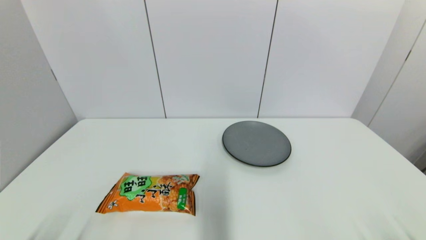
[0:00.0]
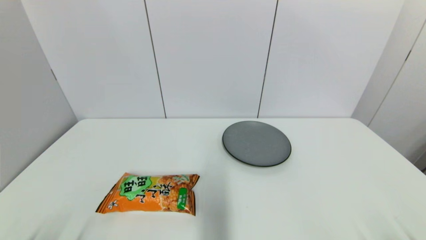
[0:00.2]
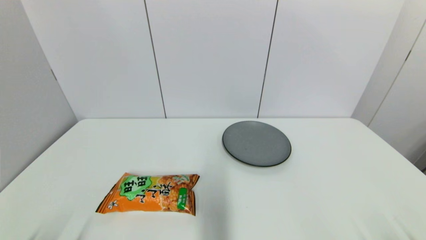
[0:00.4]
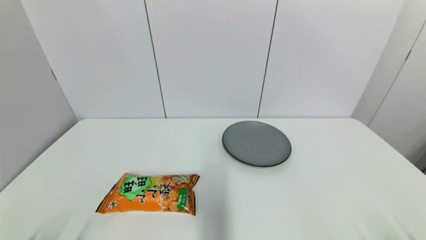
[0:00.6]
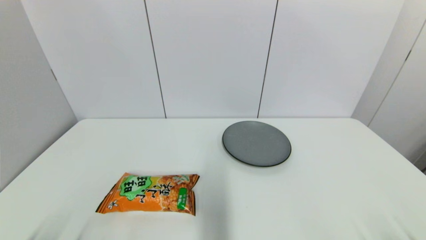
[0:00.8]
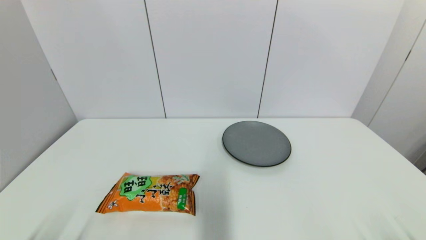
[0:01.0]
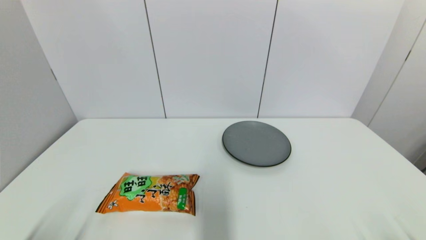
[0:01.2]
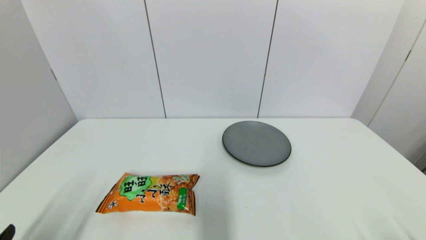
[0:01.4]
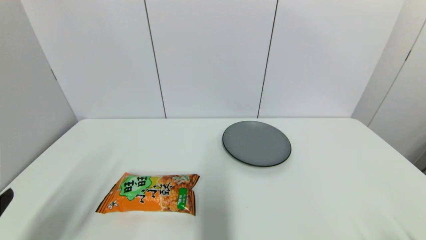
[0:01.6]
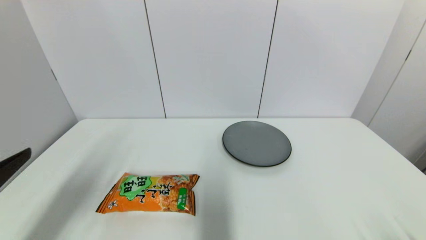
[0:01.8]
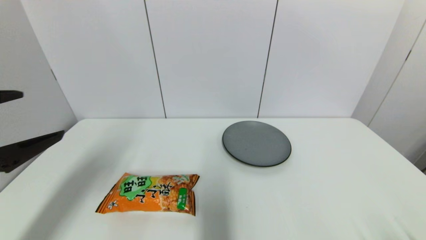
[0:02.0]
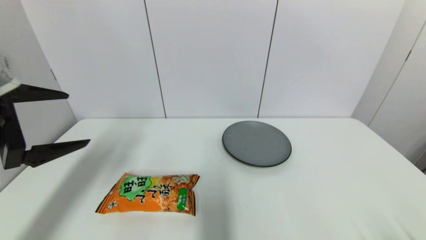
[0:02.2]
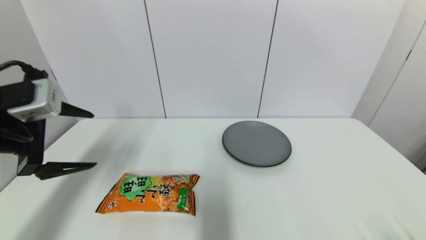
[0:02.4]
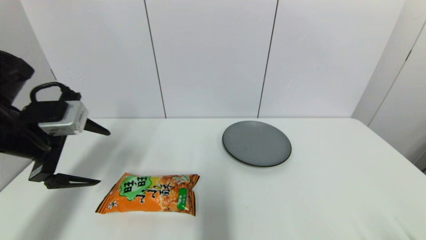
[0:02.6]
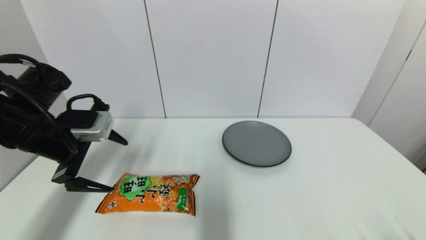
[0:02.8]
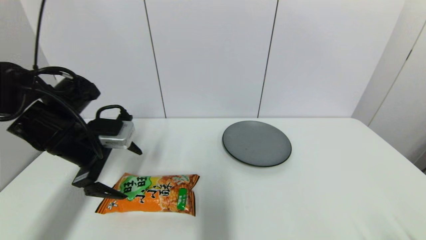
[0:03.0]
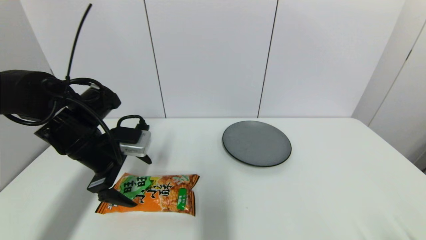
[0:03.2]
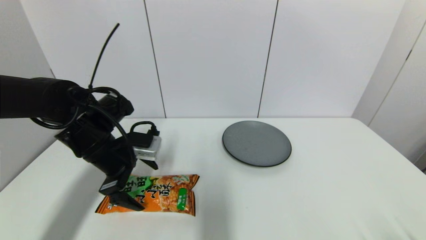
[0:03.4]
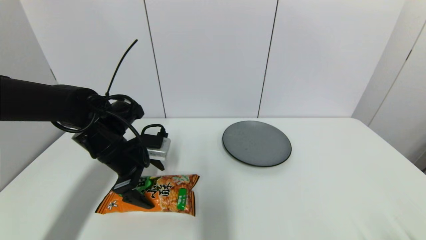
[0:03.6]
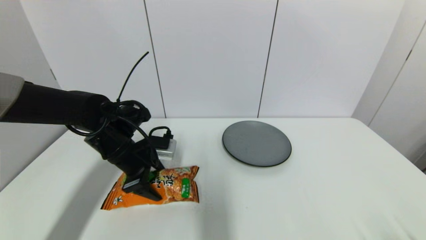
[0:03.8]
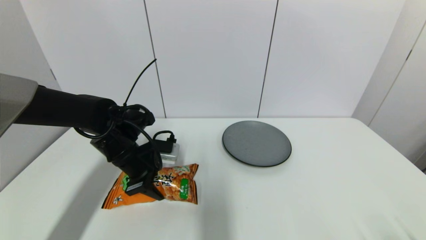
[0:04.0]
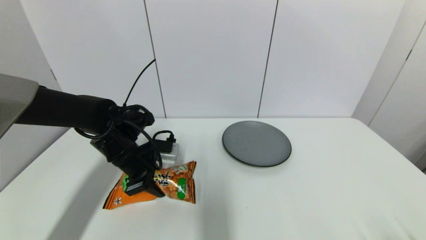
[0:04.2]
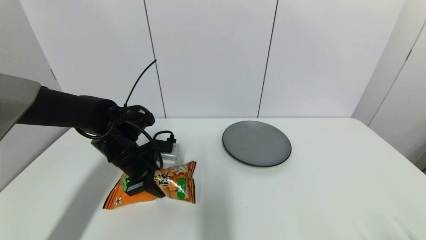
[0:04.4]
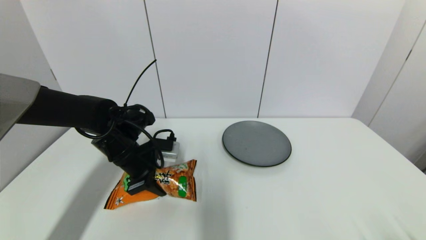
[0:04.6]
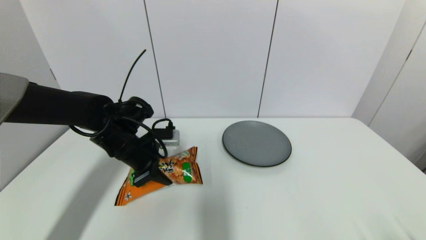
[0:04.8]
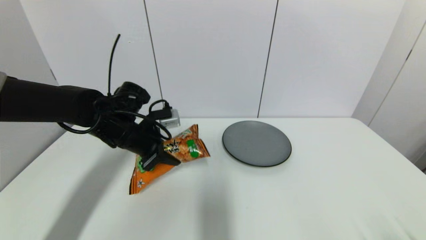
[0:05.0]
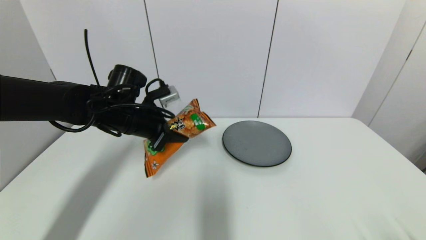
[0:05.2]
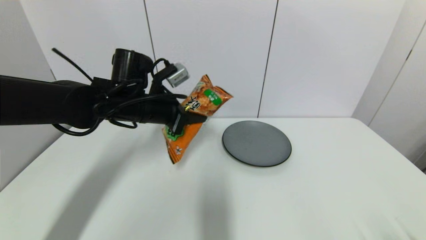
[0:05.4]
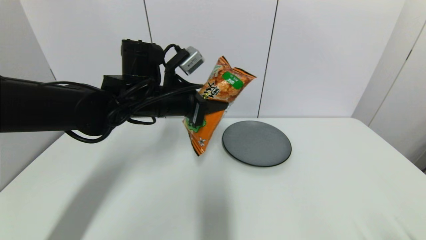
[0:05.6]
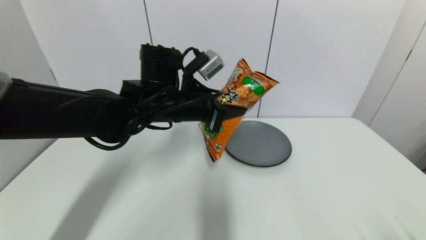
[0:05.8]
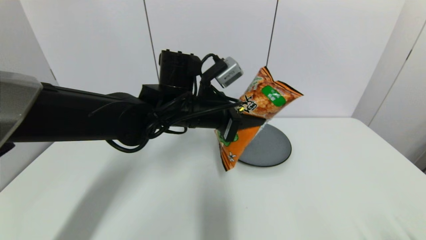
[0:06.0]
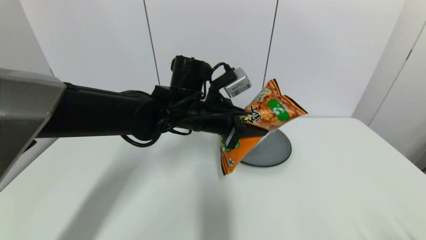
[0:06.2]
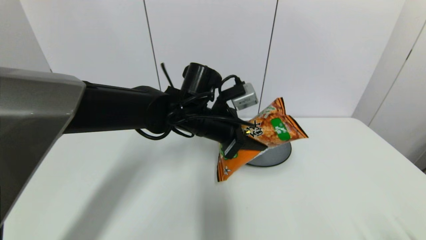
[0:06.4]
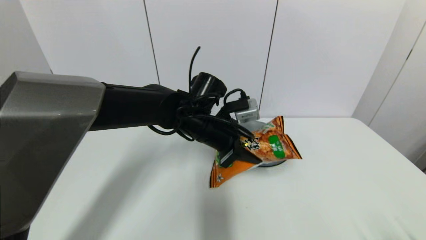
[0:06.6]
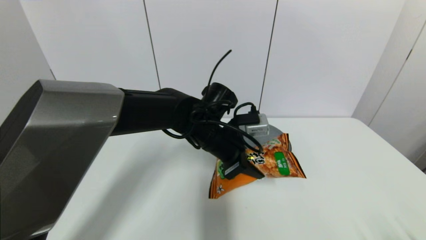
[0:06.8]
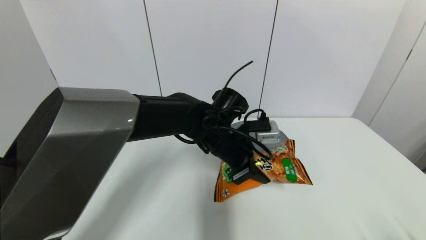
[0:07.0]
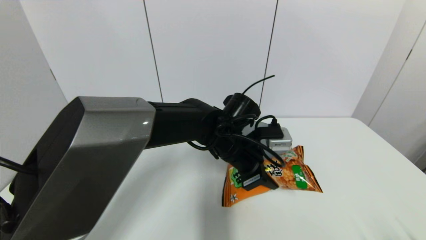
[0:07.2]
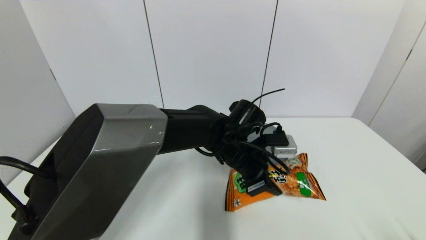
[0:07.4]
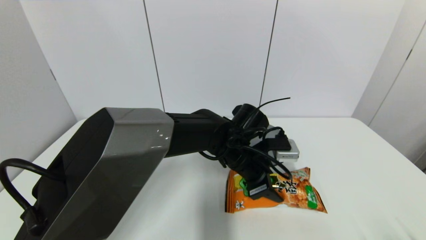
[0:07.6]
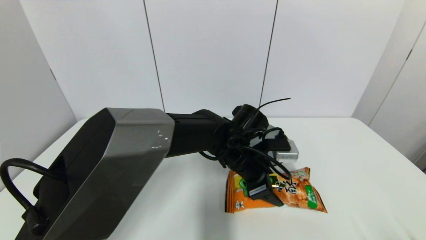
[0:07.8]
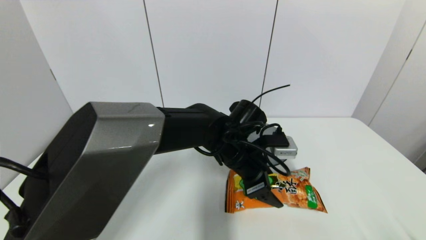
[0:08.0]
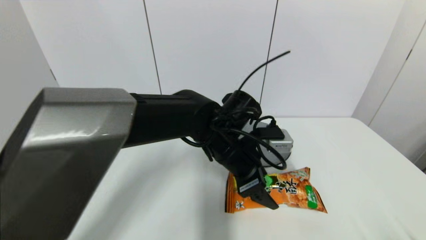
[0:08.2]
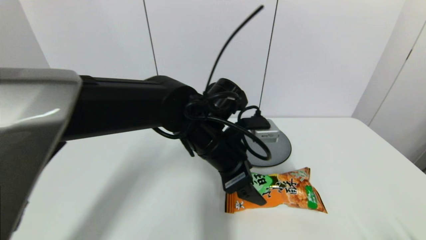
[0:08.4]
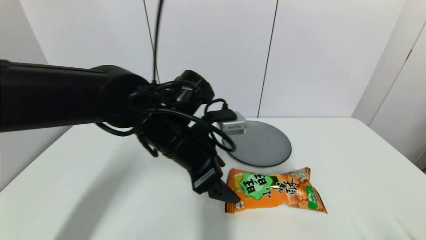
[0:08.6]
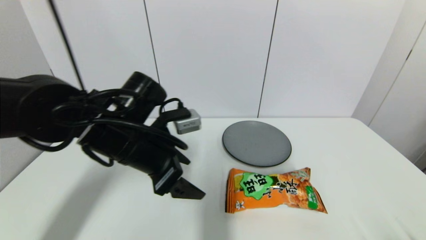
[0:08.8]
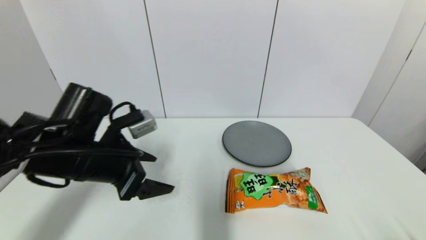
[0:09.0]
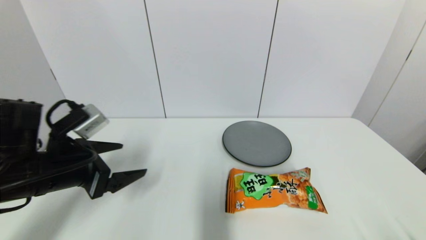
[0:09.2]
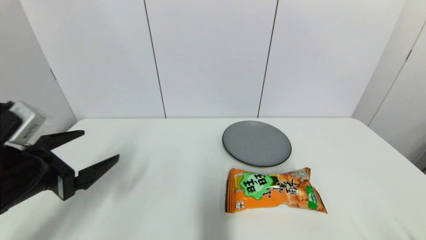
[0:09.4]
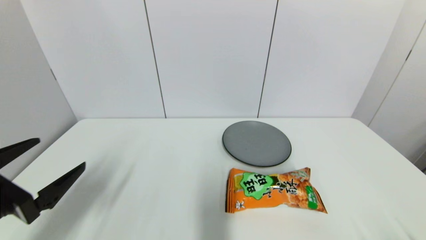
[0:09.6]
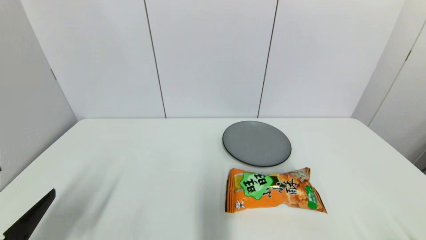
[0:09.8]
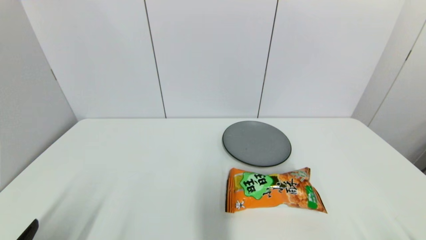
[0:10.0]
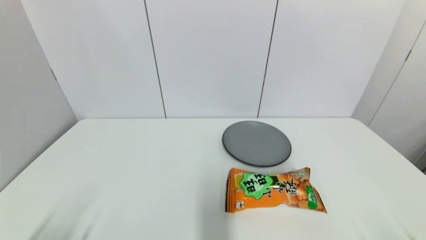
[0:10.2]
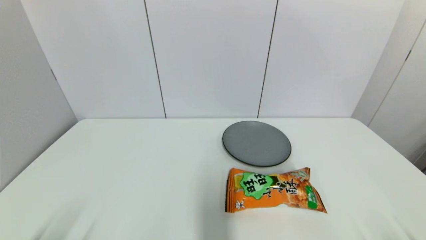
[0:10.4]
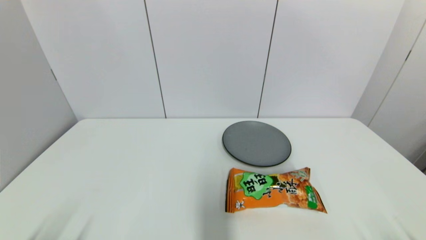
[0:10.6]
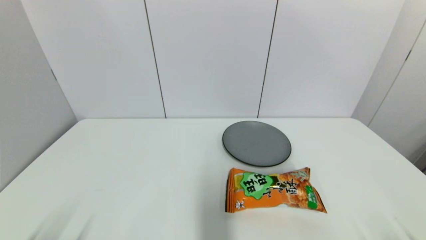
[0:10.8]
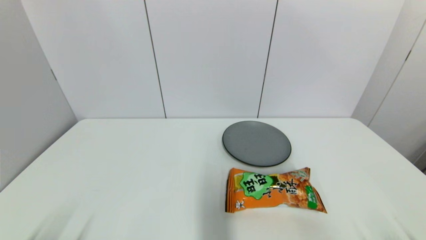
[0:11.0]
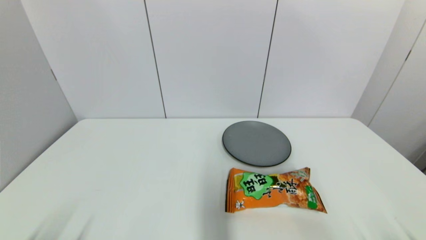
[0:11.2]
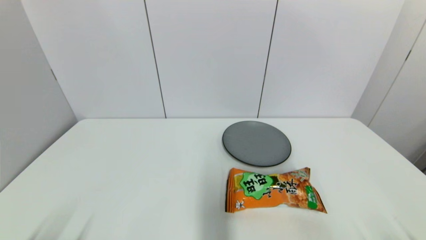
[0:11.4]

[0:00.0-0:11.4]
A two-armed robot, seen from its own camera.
Step, 0:01.4 to 0:04.4: Grasp the cookie with left gripper.
Step, 0:04.6 to 0:08.2: Place the cookie on the table with left gripper.
0:00.0 to 0:01.4: The left gripper goes about 10 cm upward.
0:01.4 to 0:02.8: The left gripper is displaced forward by approximately 25 cm.
0:02.8 to 0:04.2: The left gripper shifts about 15 cm downward, to the right and forward, and closes its fingers.
0:04.2 to 0:05.6: The left gripper goes approximately 15 cm upward and to the right.
0:05.6 to 0:07.2: The left gripper moves to the right and downward, roughly 15 cm.
0:07.2 to 0:08.6: The left gripper shifts roughly 15 cm to the left, upward and backward, and opens up.
0:08.6 to 0:10.0: The left gripper shifts approximately 35 cm backward and to the left.
0:10.0 to 0:11.4: The left gripper travels downward by about 5 cm.

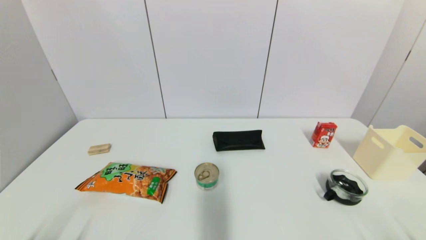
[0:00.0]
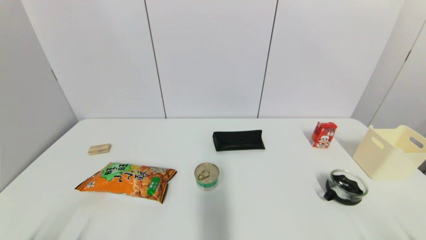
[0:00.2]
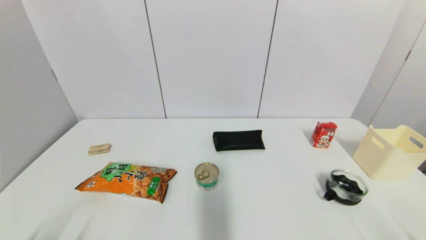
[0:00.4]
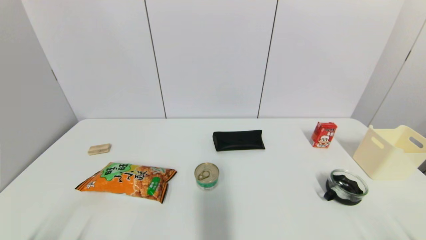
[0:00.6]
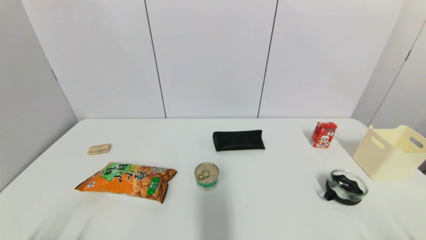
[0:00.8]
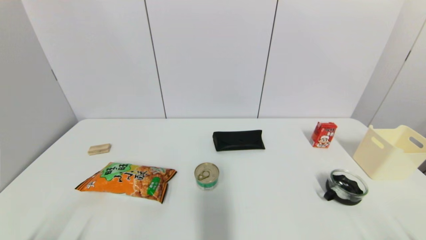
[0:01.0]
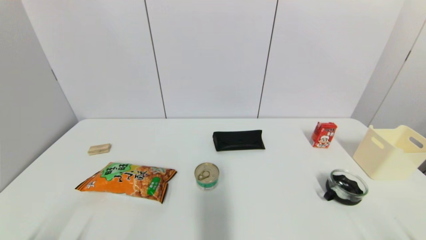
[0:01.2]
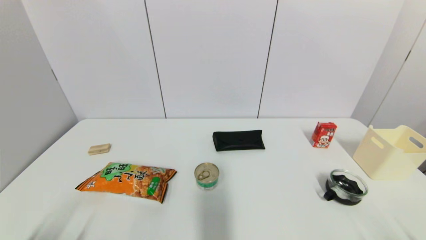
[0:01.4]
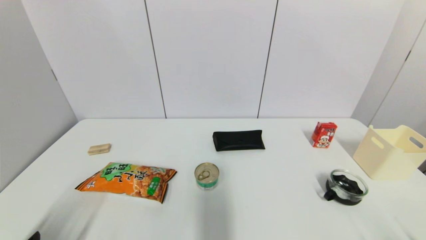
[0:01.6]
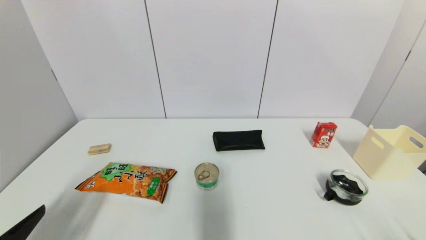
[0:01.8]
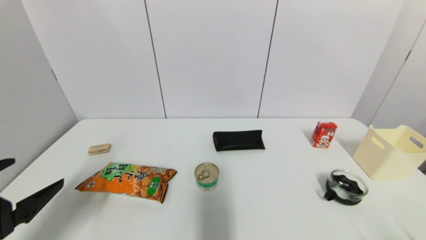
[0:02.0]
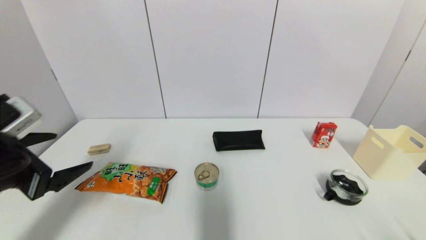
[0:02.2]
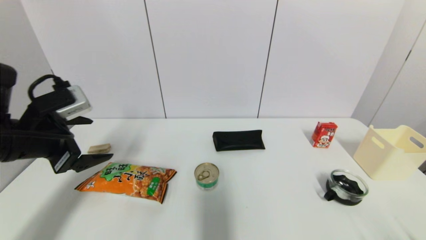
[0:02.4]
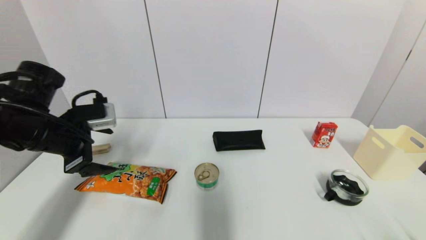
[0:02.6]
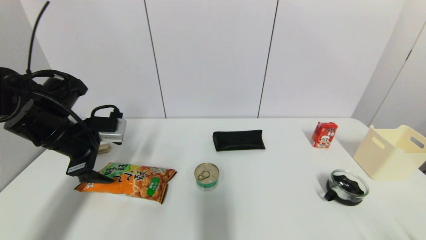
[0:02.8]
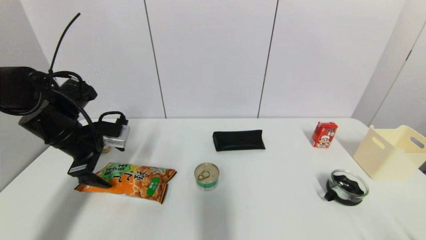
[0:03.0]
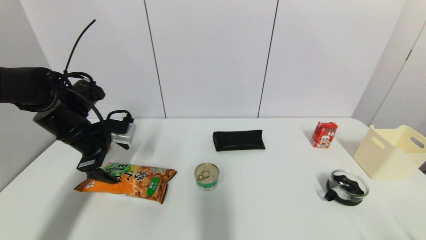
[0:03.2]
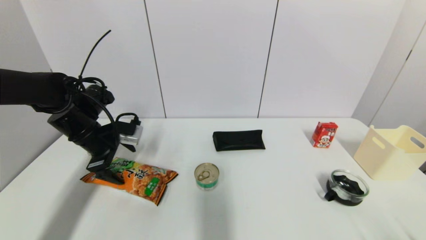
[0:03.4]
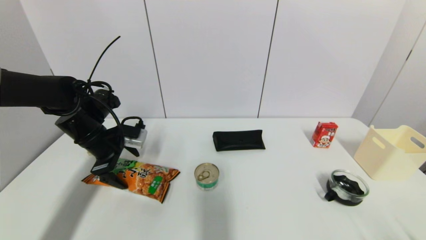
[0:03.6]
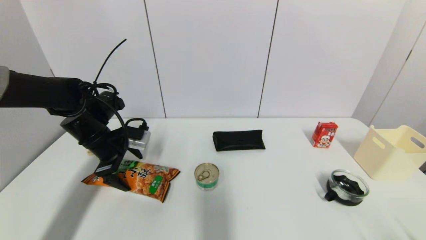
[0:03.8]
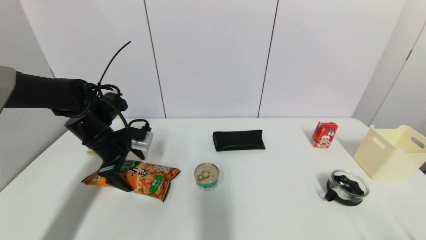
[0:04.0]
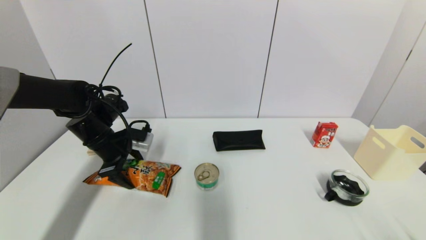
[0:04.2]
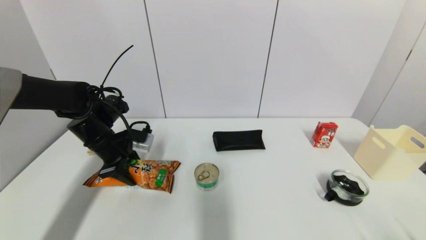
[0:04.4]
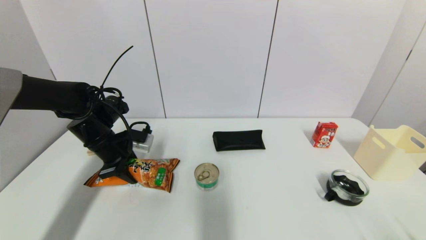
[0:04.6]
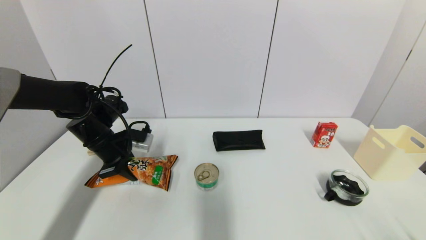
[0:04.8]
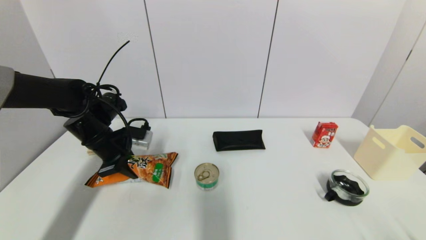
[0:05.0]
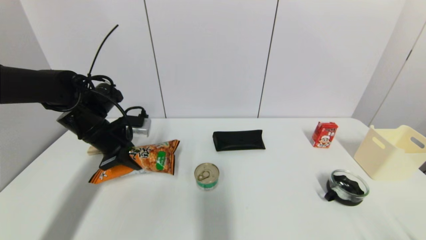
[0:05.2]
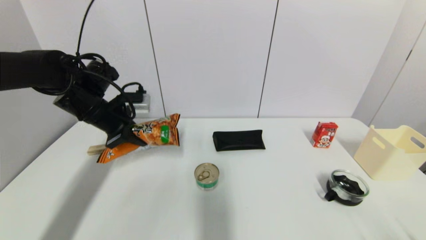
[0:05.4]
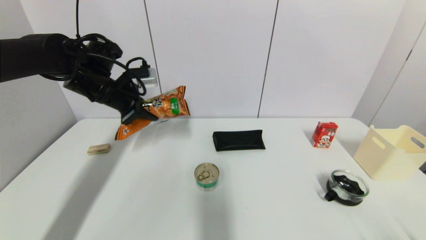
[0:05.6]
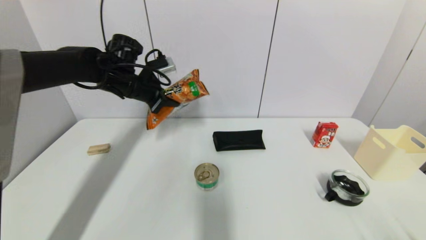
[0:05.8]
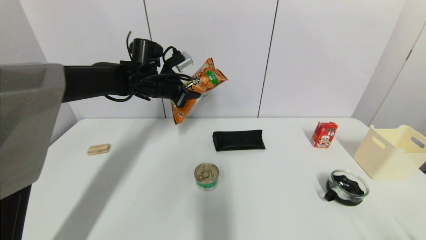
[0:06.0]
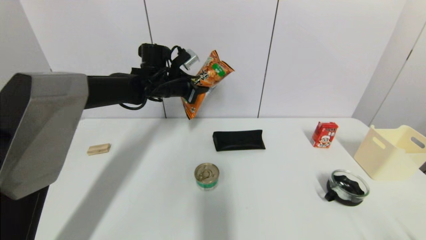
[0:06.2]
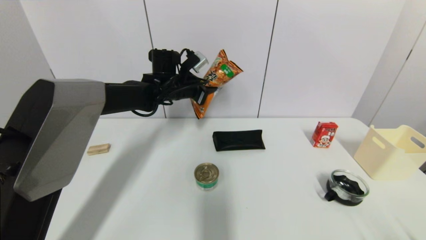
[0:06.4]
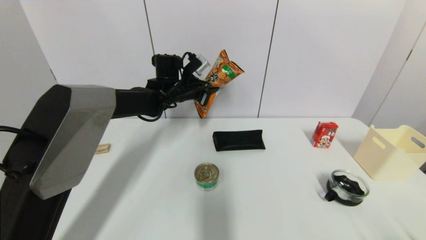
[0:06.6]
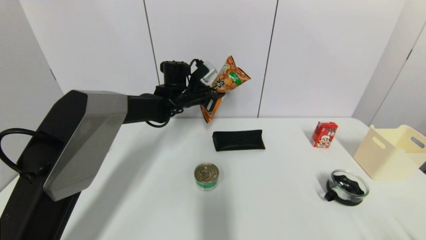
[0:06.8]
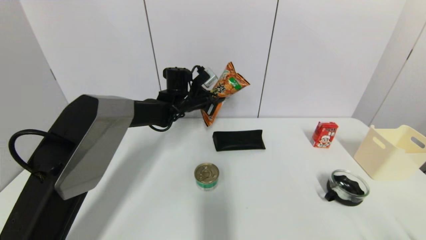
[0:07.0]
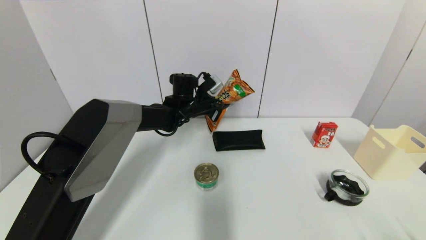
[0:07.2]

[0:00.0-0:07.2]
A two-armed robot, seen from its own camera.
Step, 0:01.6 to 0:04.8: Grasp the cookie with left gripper.
0:01.4 to 0:02.8: The left gripper goes some 30 cm forward.
0:02.8 to 0:04.4: The left gripper is displaced forward and downward by roughly 10 cm, and closes its fingers.
0:04.4 to 0:05.8: The left gripper shifts approximately 15 cm upward, forward and to the right, and closes its fingers.
0:05.8 to 0:07.2: The left gripper moves to the right, downward and forward, some 15 cm.
